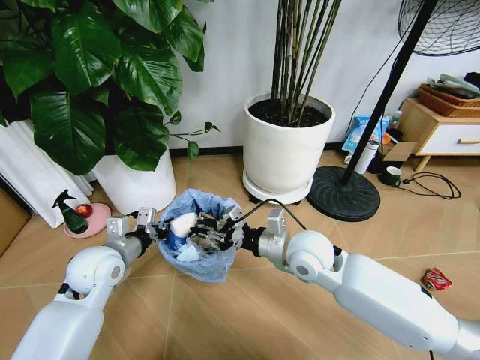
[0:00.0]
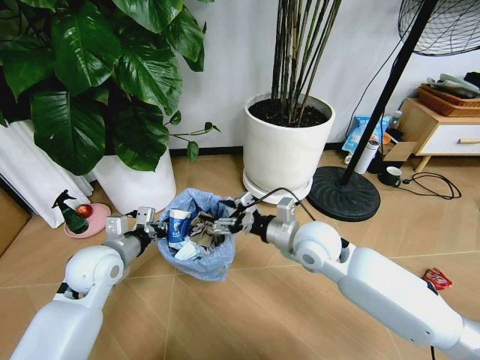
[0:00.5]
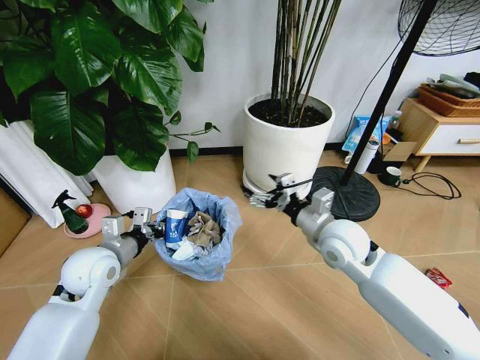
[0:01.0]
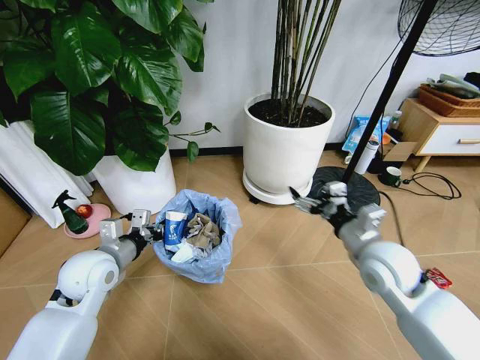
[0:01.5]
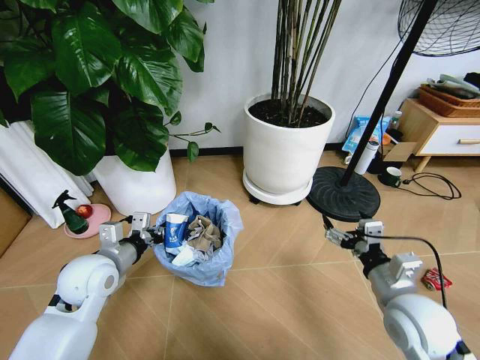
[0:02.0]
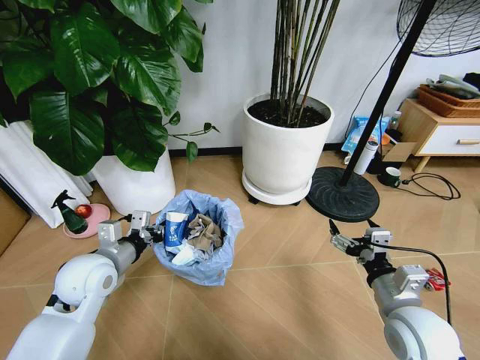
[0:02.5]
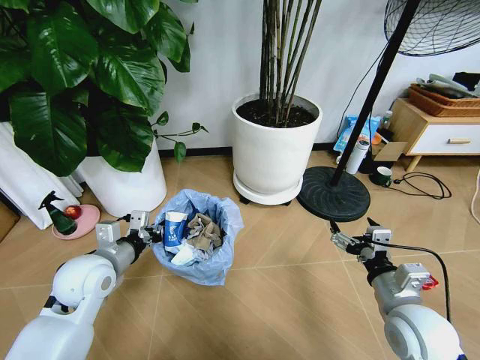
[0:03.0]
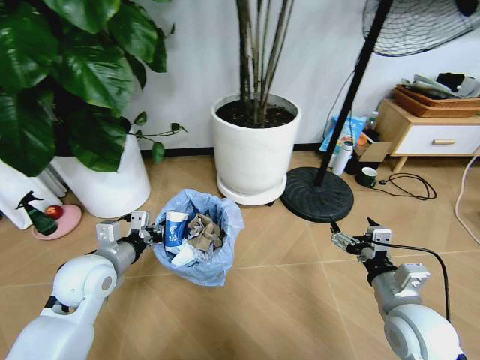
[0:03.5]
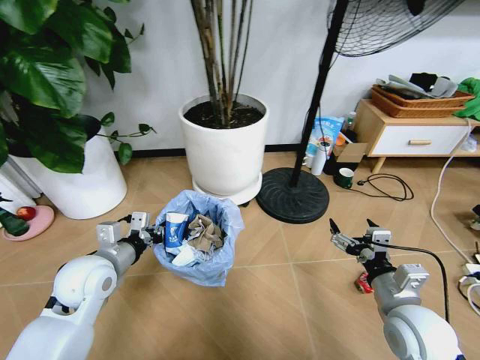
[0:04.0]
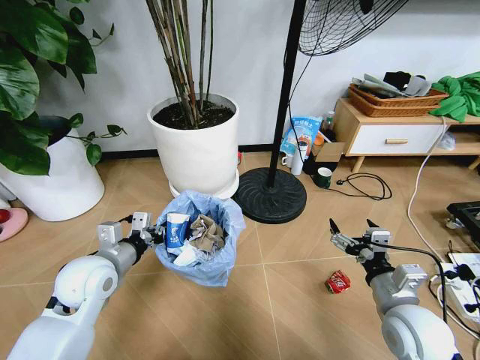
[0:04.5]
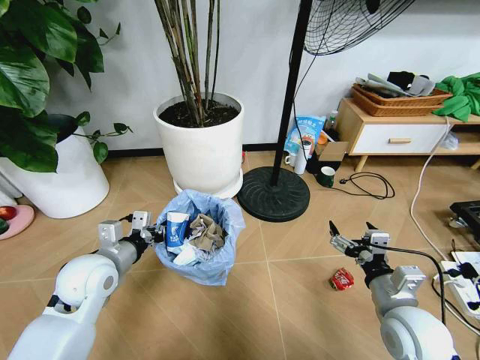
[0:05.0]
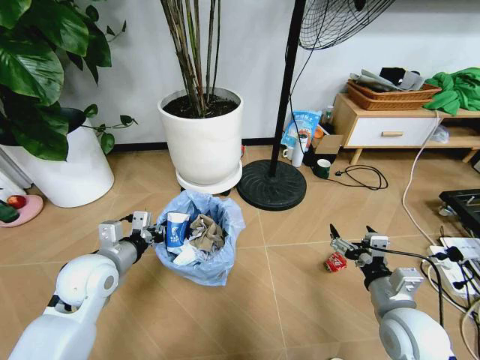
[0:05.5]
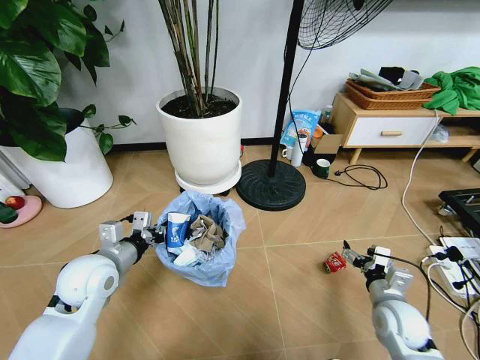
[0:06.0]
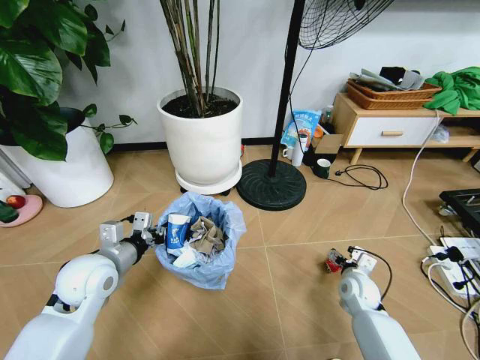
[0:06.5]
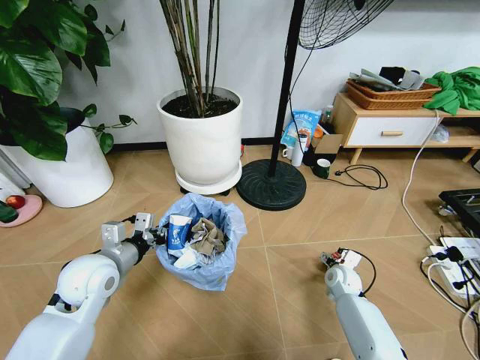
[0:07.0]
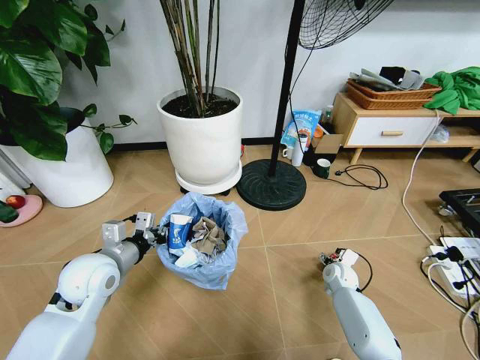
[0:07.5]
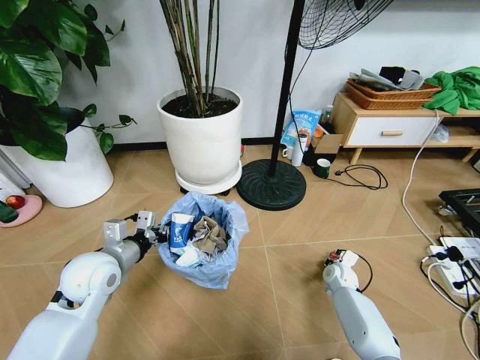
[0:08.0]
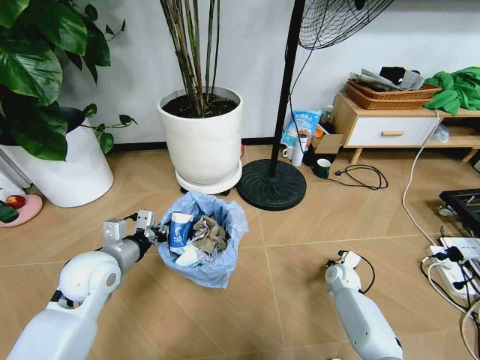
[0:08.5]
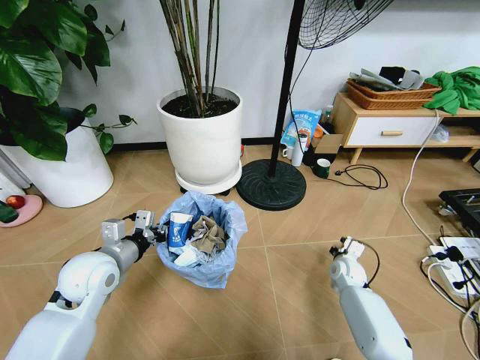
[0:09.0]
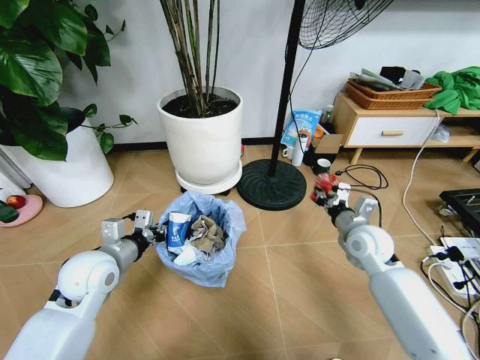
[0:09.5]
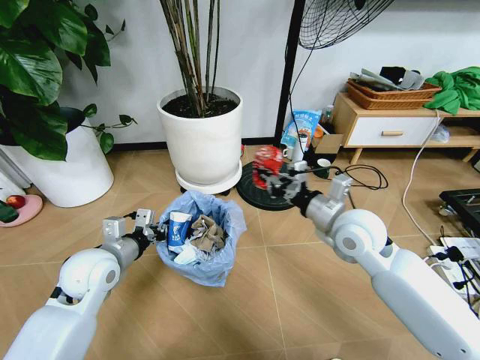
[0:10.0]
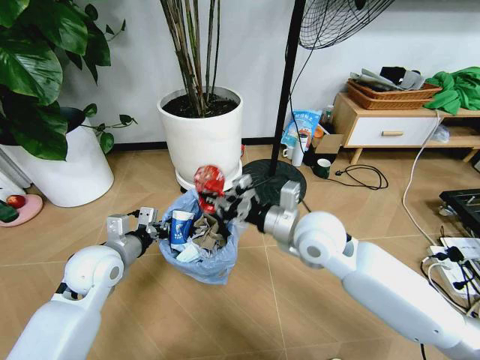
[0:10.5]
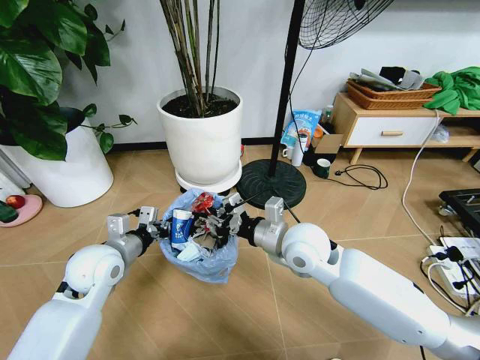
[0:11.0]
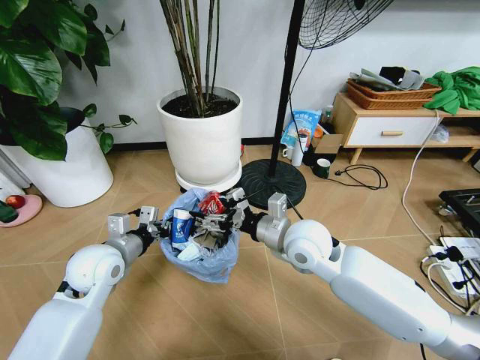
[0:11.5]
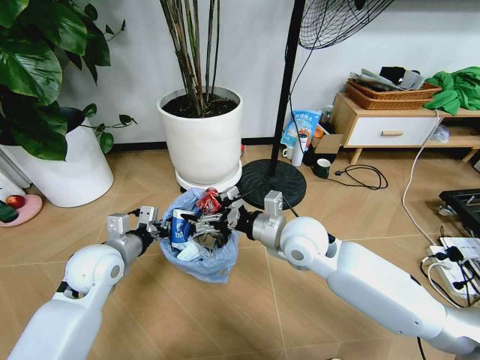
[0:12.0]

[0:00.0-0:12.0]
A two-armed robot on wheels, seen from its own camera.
Task of the whole recording: Pick up the trash bin and place the garbage on the floor into it.
0:00.0 to 0:02.0: The right gripper goes some 20 cm to the right and backward, and opens its fingers.
0:04.0 to 0:06.0: The right gripper heads downward, covering some 10 cm.
0:06.0 to 0:08.0: The right gripper moves forward and downward, roughly 20 cm, and closes its fingers.
0:08.0 to 0:10.0: The right gripper travels upward by approximately 30 cm, and closes up.
0:10.0 to 0:12.0: The right gripper shifts approximately 10 cm to the left, and opens.

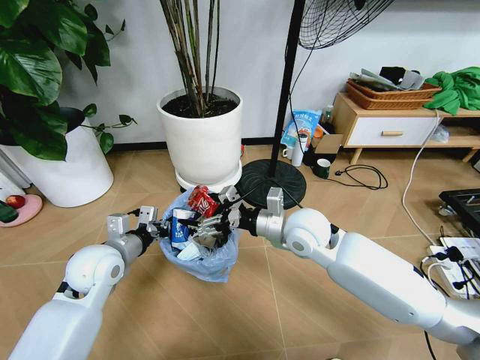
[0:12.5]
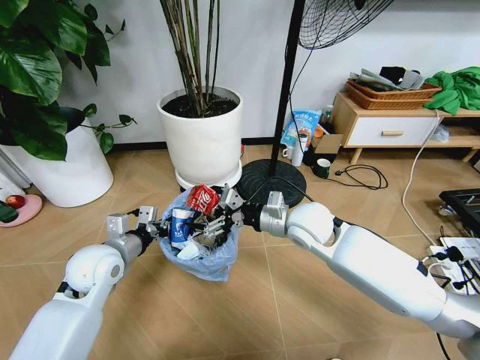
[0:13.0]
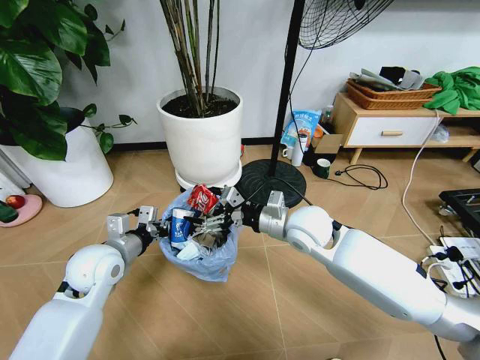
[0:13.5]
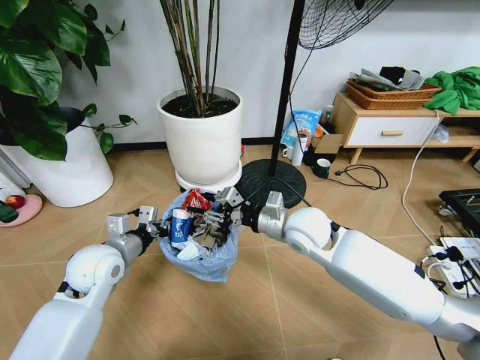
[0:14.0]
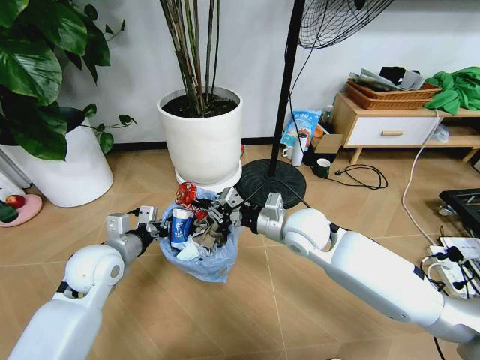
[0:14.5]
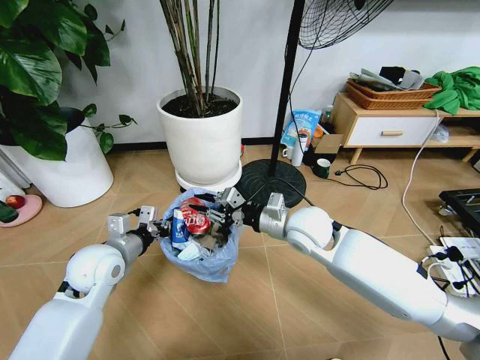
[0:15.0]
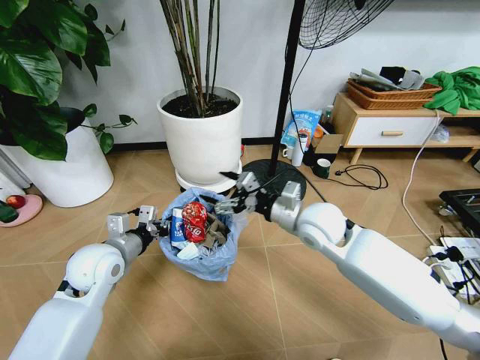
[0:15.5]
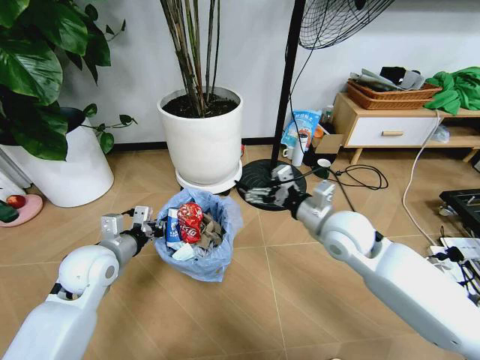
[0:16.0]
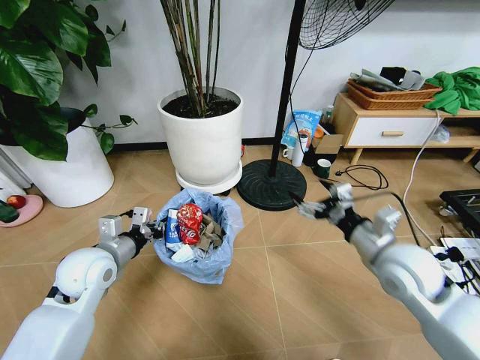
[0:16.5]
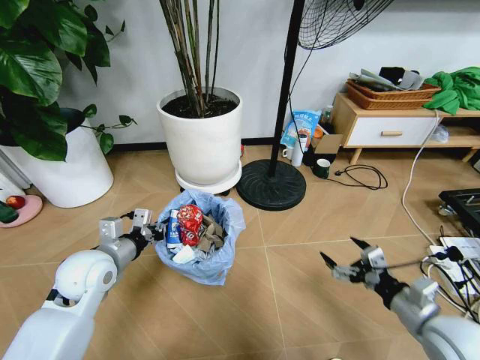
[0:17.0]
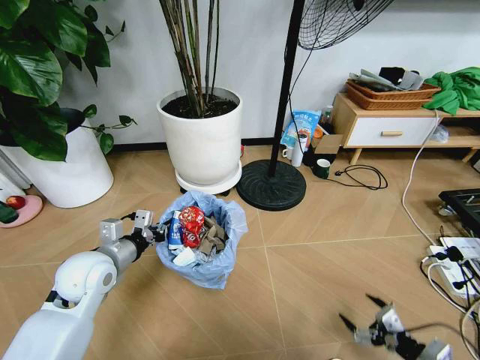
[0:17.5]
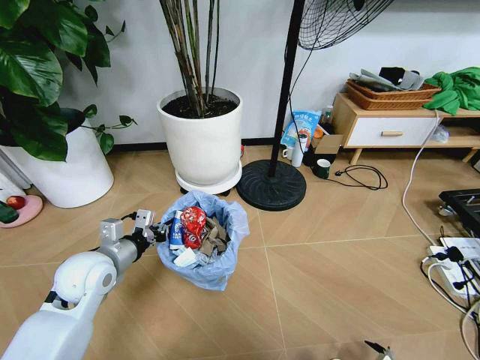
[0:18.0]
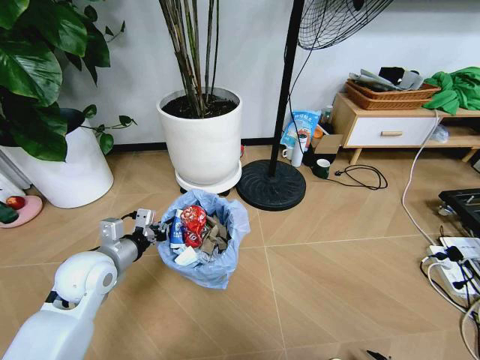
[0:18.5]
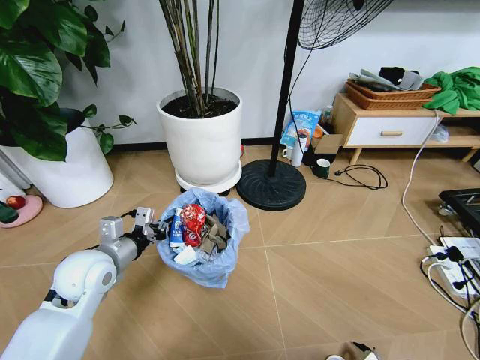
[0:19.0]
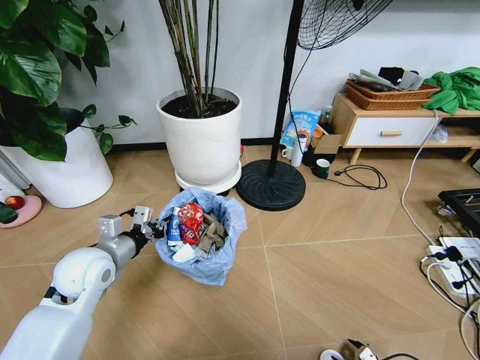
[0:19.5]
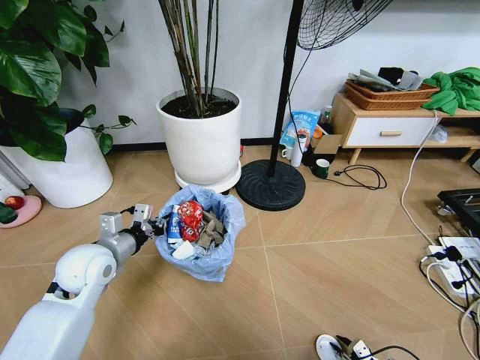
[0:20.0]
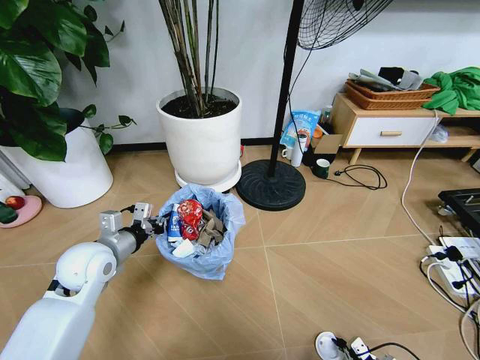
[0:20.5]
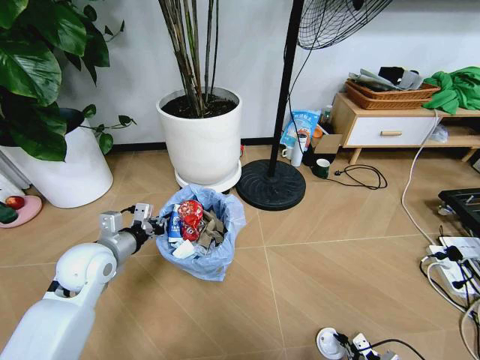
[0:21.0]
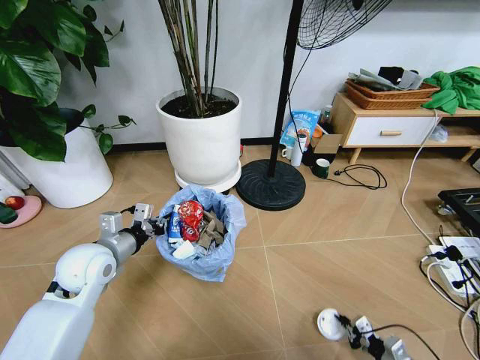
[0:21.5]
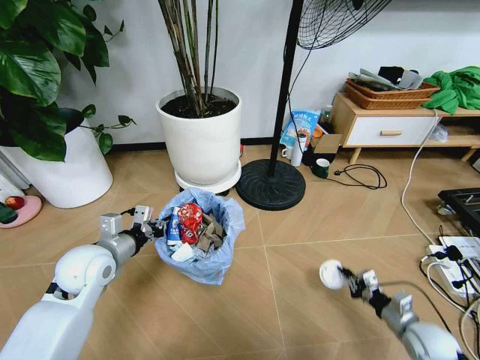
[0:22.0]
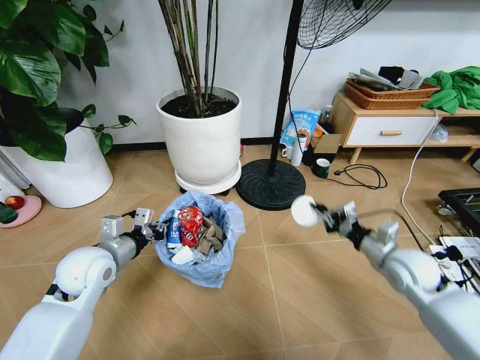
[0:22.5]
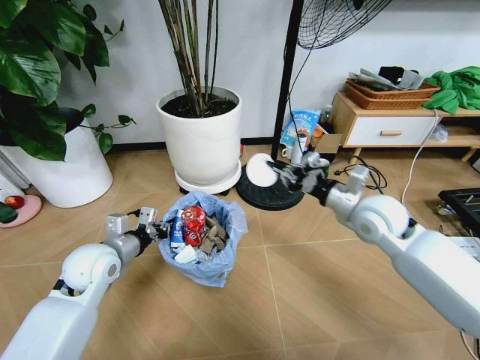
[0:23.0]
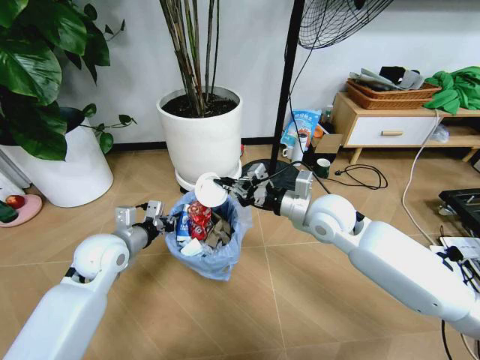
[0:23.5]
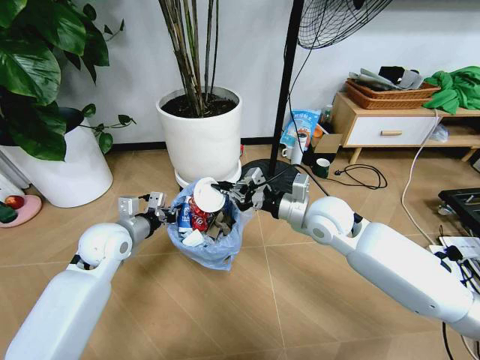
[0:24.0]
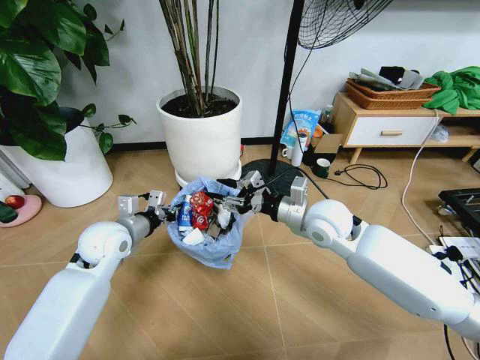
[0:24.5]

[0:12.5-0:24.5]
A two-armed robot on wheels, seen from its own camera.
Task of the whole recording: Pick up the trash bin and place the garbage on the floor into it.
0:12.5 to 0:14.5: The right gripper closes up.
0:14.5 to 0:16.5: The right gripper moves to the right and backward, roughly 20 cm, and opens up.
0:16.5 to 0:18.5: The right gripper heads downward, backward and to the right, covering some 40 cm.
0:18.5 to 0:20.5: The right gripper travels forward by roughly 5 cm, and closes.
0:20.5 to 0:22.5: The right gripper is displaced upward and forward by about 35 cm.
0:22.5 to 0:24.5: The left gripper shifts approximately 5 cm forward, while the right gripper is displaced to the left and upward by roughly 20 cm, and opens its fingers.

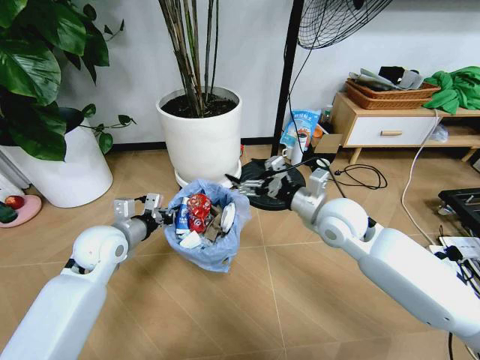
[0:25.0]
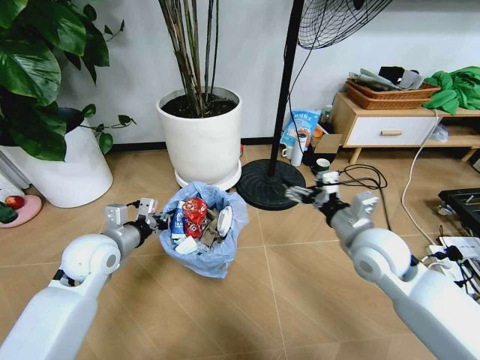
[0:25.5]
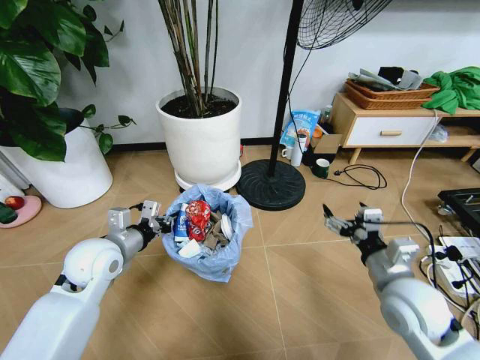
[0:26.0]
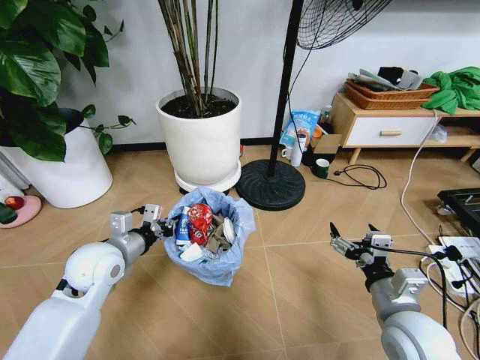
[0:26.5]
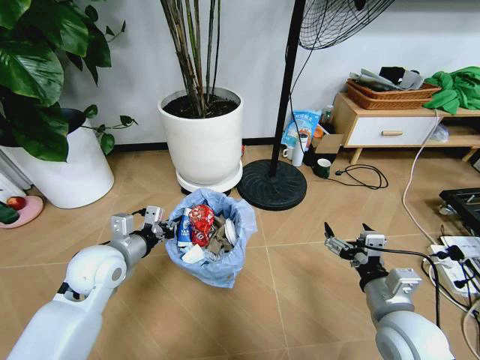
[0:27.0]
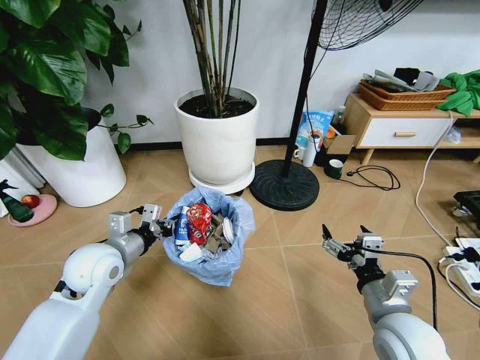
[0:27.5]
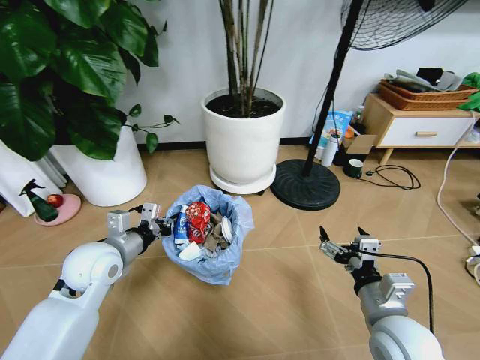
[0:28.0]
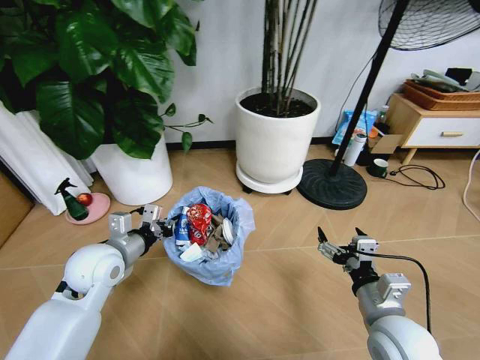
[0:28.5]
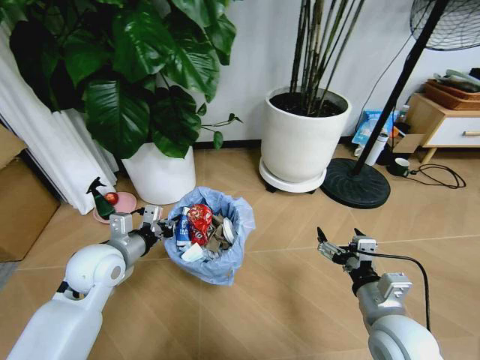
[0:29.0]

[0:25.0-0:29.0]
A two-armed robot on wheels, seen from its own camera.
Task of the whole recording: Pick up the trash bin and place the garbage on the floor into it.
0:25.0 to 0:27.0: The left gripper changes place by roughly 5 cm, while the right gripper goes some 20 cm backward and downward.
